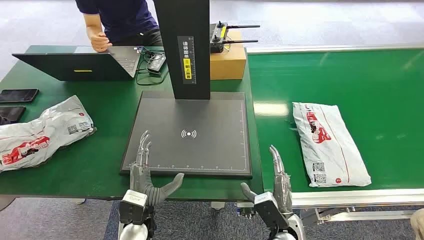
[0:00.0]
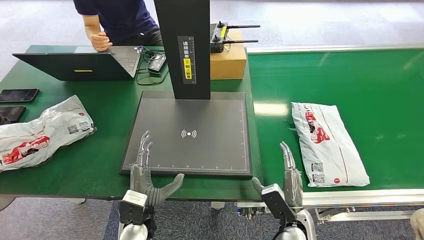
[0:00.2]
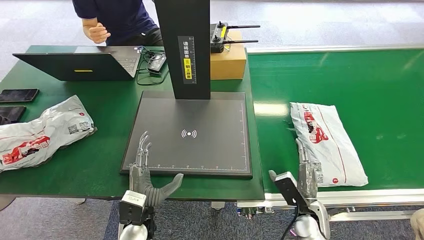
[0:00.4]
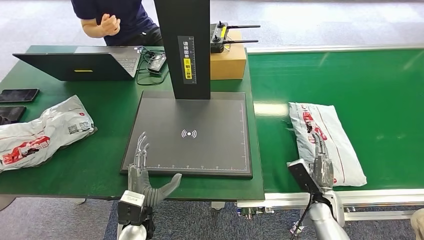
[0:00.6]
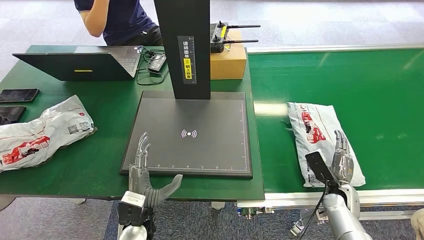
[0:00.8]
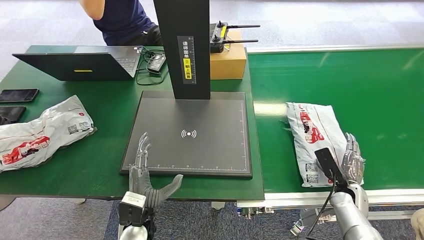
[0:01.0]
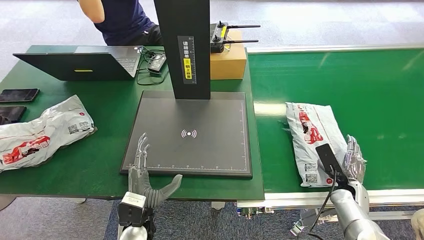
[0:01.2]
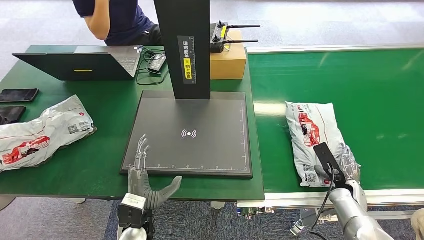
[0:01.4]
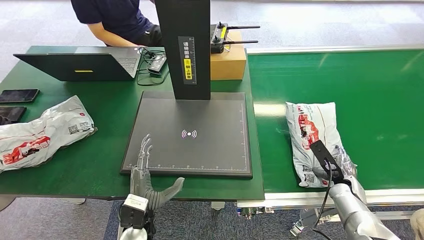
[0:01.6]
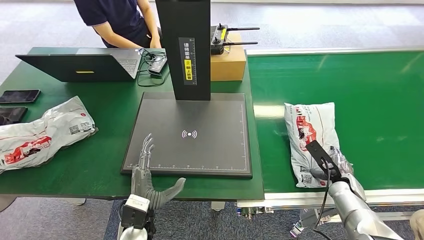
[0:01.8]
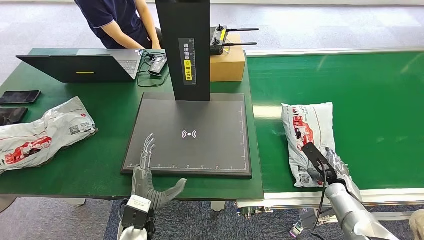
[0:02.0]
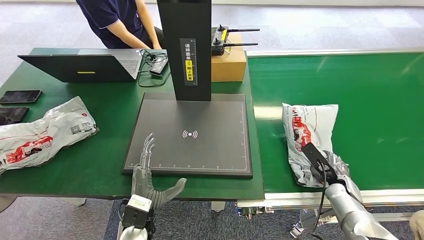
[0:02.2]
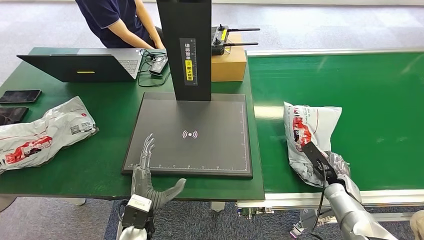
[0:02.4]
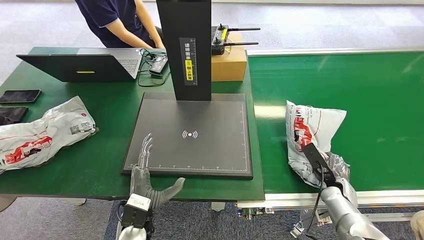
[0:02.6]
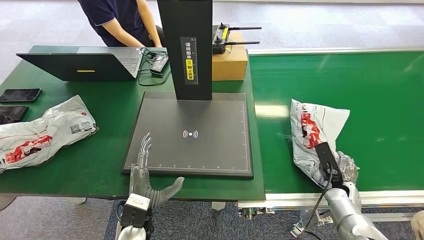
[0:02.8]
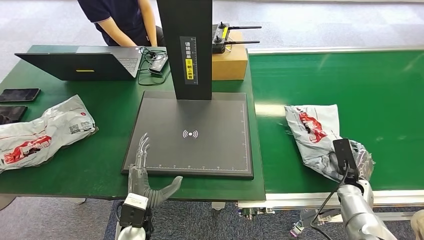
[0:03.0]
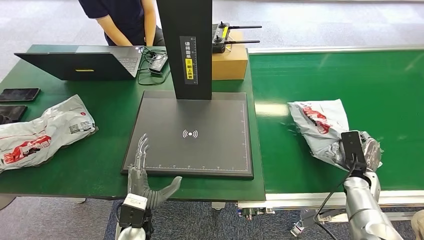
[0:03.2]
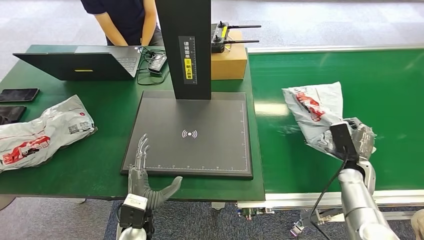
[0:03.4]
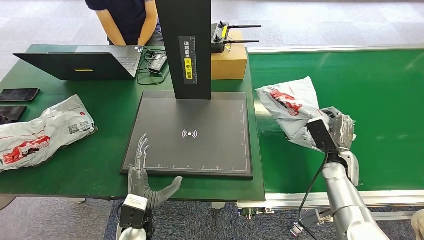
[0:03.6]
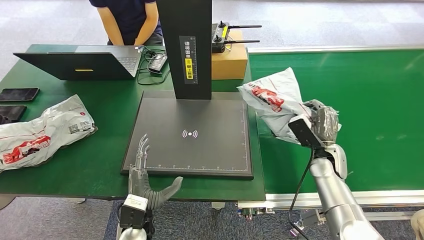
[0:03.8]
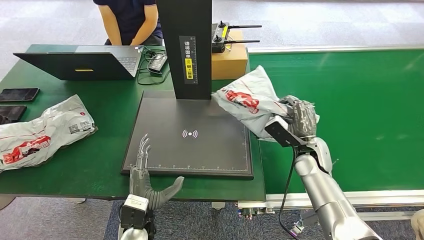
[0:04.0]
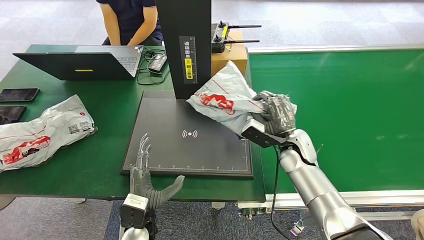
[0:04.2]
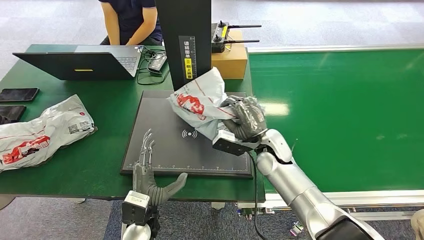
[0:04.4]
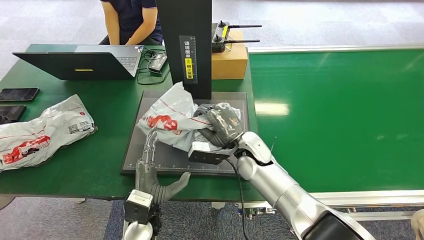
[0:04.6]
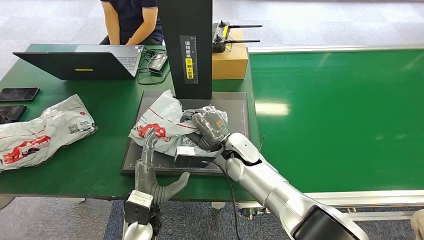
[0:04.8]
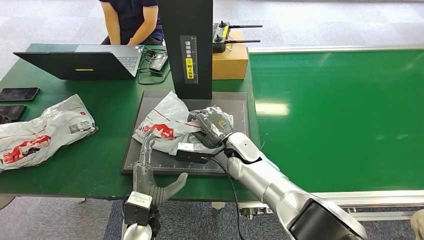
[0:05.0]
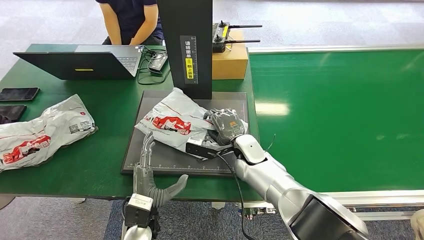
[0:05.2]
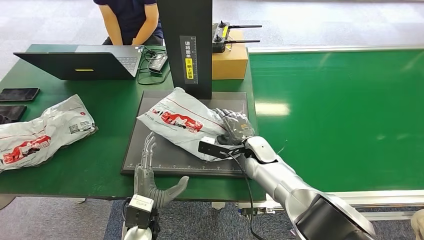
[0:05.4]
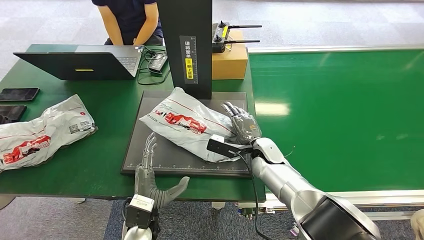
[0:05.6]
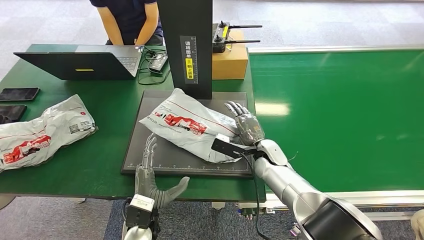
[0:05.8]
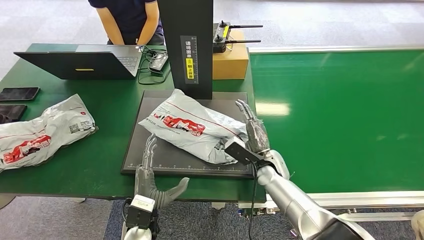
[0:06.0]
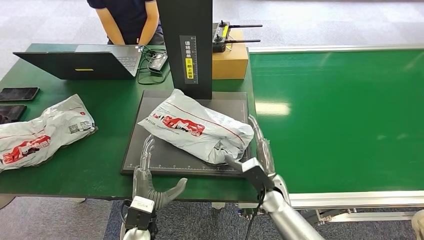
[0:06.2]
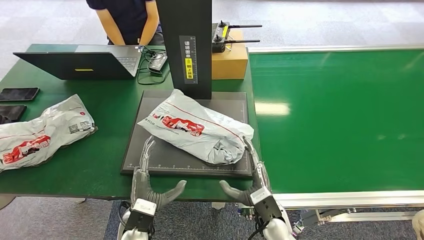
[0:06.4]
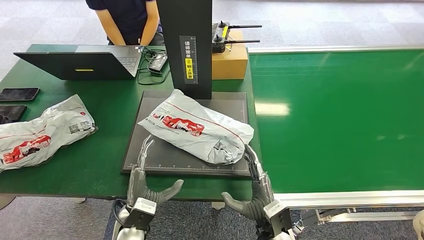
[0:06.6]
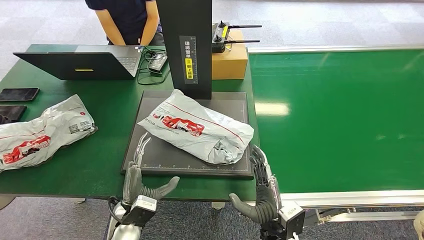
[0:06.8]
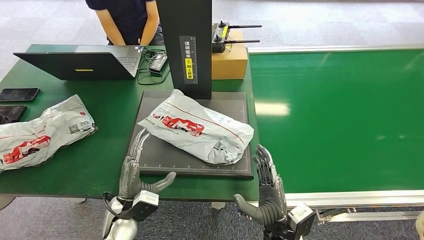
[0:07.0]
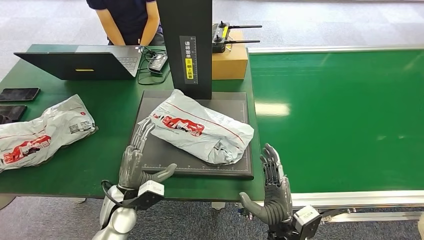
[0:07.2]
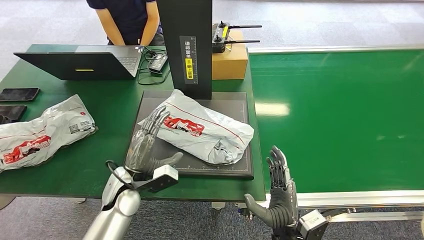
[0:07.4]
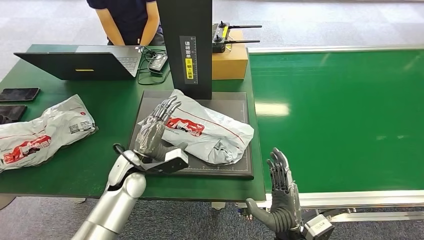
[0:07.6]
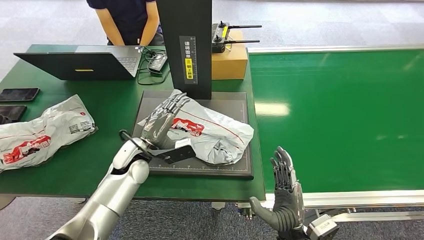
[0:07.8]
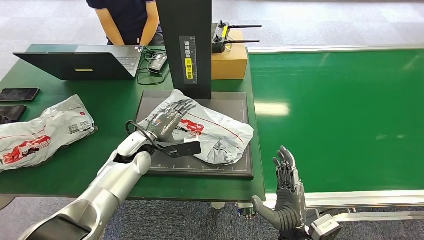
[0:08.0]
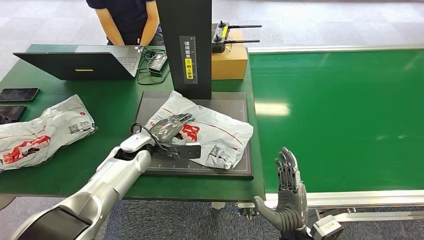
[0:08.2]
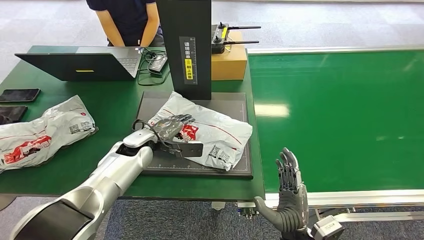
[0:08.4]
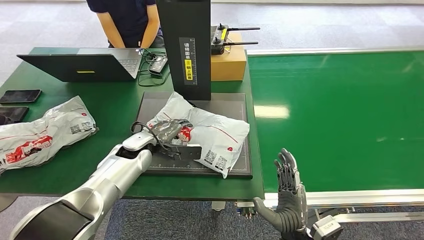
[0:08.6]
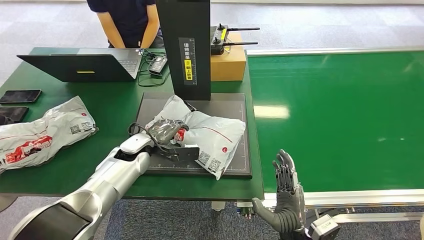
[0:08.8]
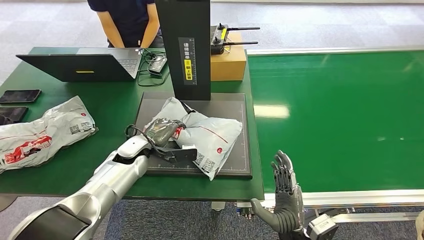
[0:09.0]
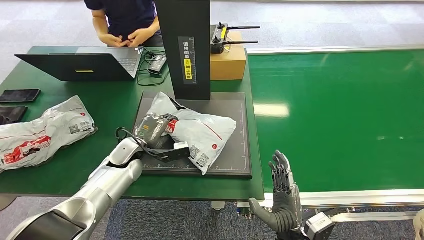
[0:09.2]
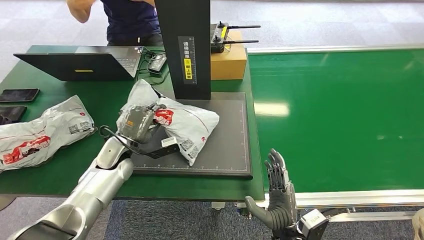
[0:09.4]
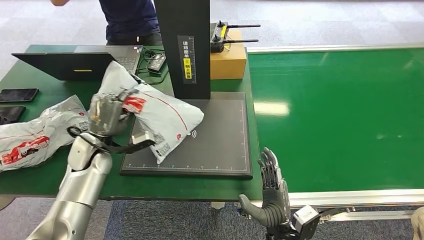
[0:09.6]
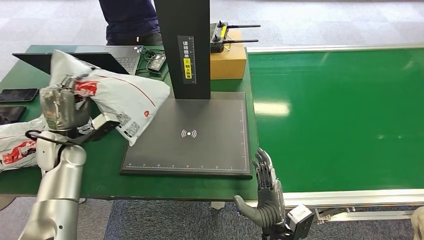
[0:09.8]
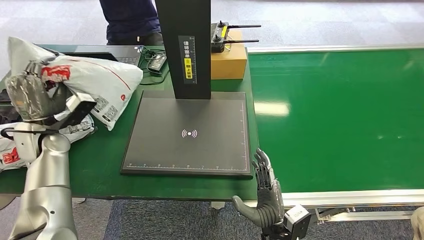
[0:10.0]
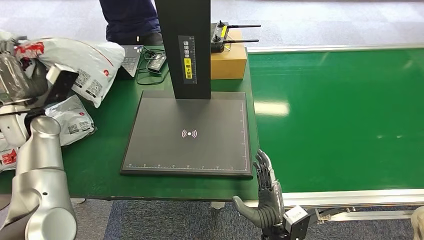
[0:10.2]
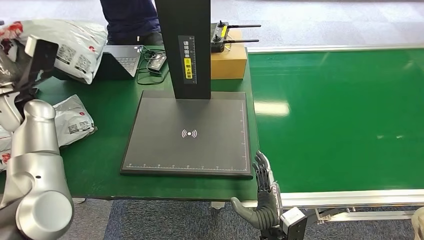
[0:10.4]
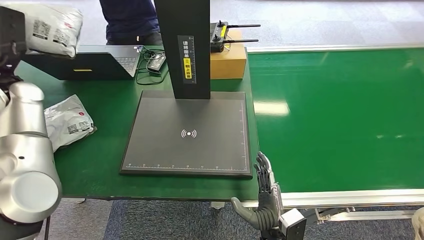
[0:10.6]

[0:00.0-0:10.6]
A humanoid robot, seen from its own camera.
Step, 0:00.0 to 0:03.6: Pick up the package from the conveyor belt.
Step, 0:03.8 to 0:06.4: Place the package onto the inbound machine.
Step, 0:06.6 to 0:09.6: Pick up the package from the inbound machine.
0:04.6 to 0:06.0: The right hand shifts about 10 cm downward and to the right.
0:06.0 to 0:07.6: The right hand moves backward, approximately 20 cm. The left hand travels forward and upward by roughly 15 cm.

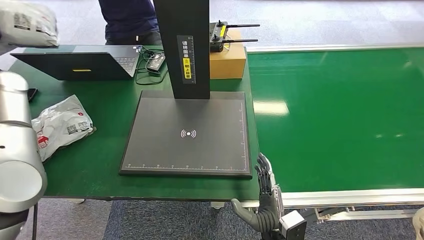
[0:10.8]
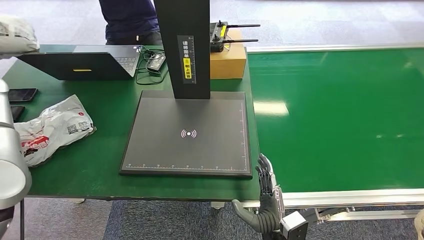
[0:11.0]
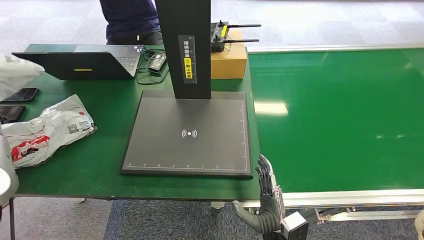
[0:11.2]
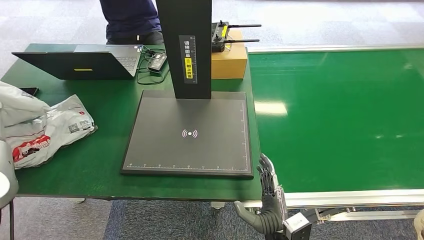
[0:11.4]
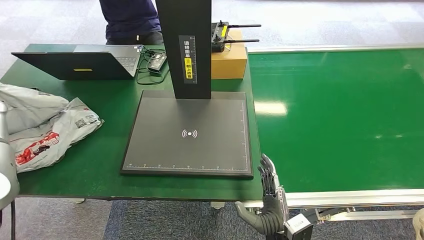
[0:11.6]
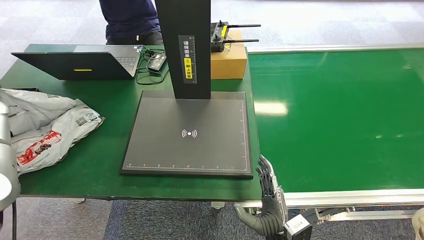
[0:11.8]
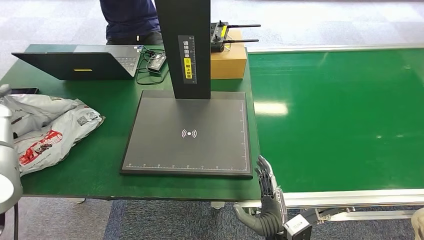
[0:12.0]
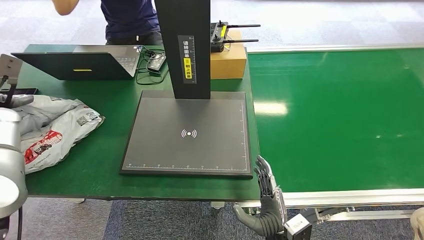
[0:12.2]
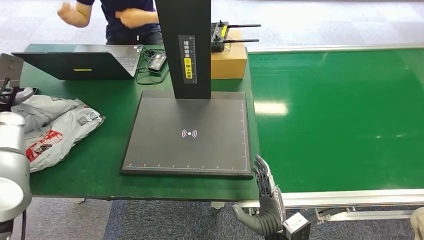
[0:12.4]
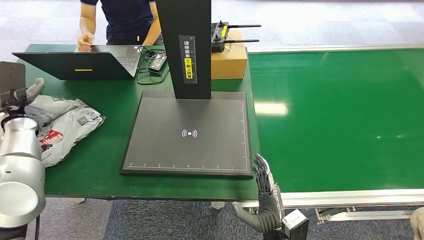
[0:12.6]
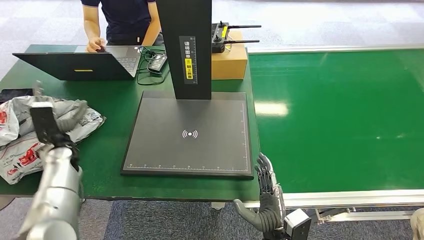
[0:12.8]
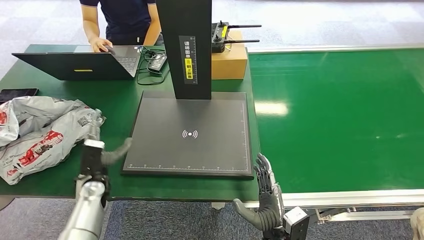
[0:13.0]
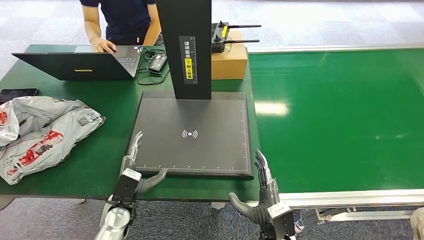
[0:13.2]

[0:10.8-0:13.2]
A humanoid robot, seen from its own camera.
Step, 0:10.8 to 0:13.2: Place the package into the parcel locker.
0:10.8 to 0:12.0: The left hand shifts about 10 cm downward and to the left.
0:12.0 to 0:13.2: The left hand heads to the right, downward and backward, covering roughly 40 cm.

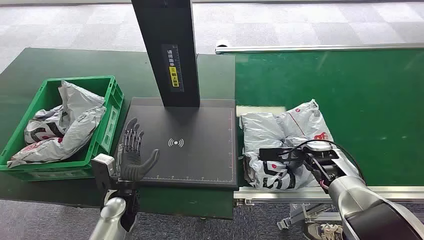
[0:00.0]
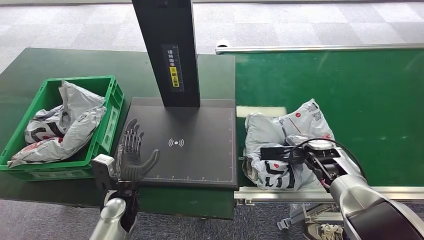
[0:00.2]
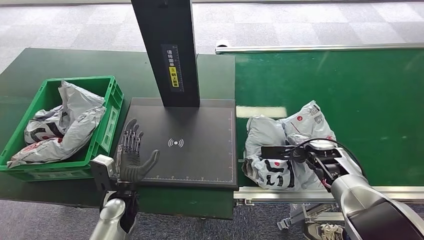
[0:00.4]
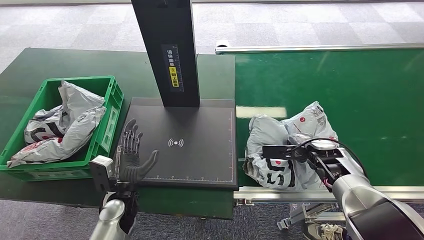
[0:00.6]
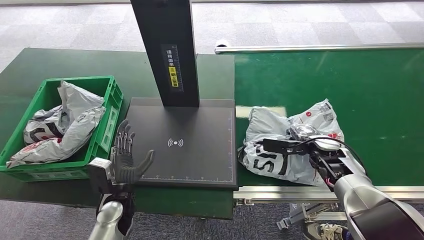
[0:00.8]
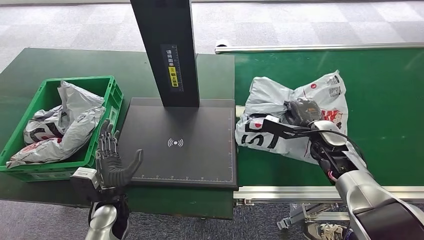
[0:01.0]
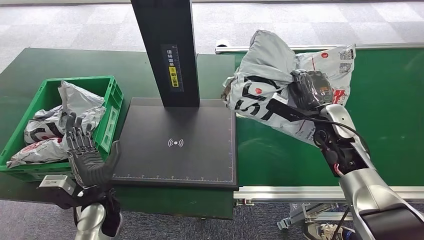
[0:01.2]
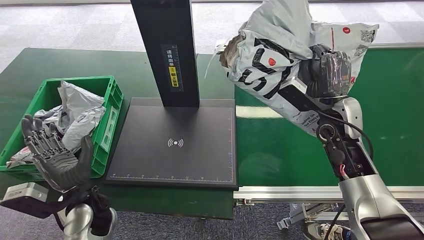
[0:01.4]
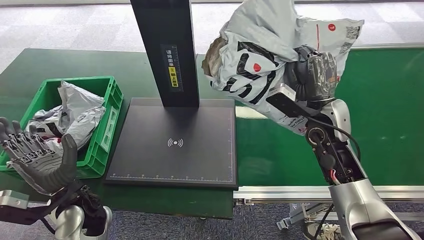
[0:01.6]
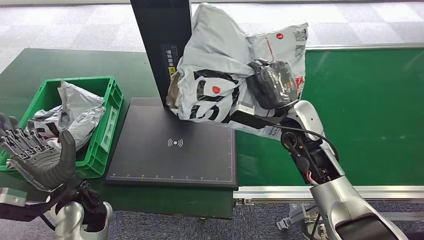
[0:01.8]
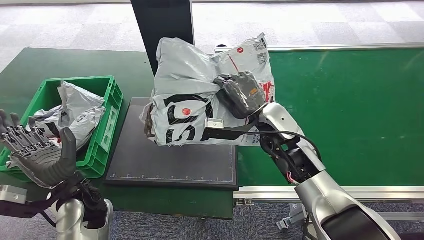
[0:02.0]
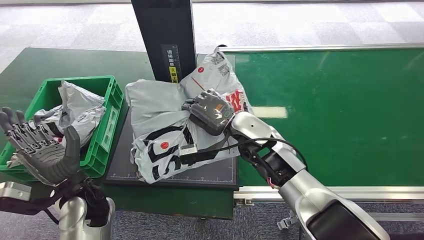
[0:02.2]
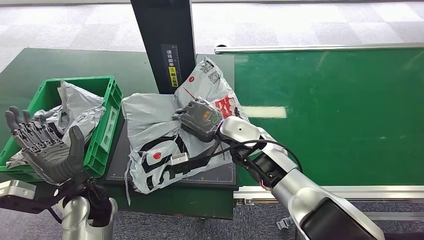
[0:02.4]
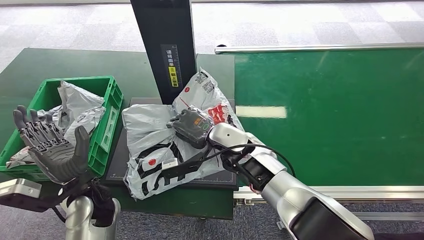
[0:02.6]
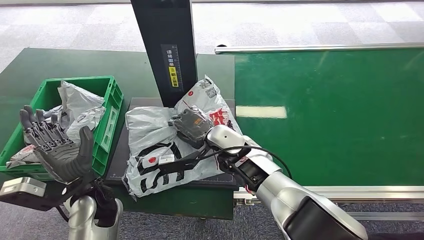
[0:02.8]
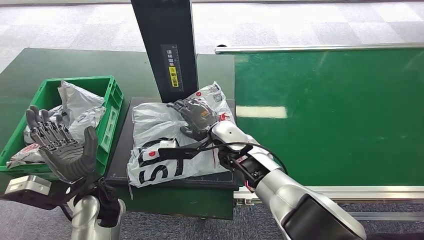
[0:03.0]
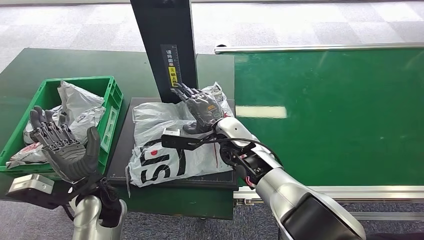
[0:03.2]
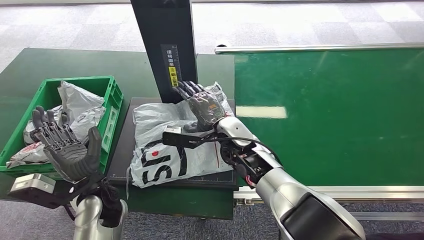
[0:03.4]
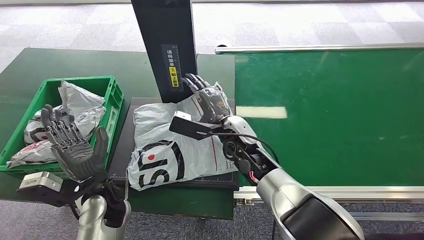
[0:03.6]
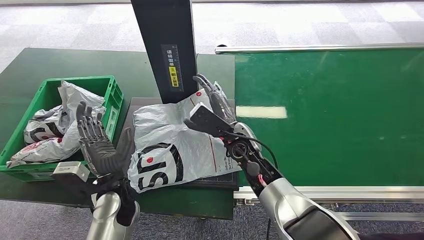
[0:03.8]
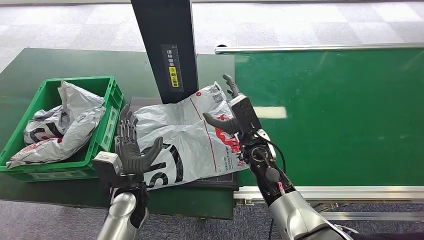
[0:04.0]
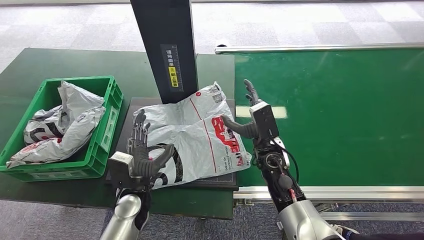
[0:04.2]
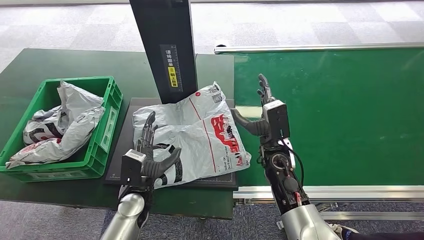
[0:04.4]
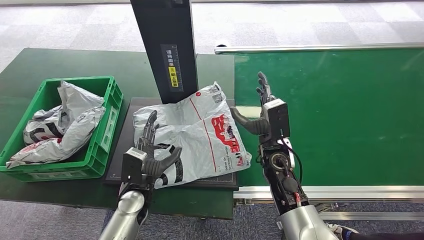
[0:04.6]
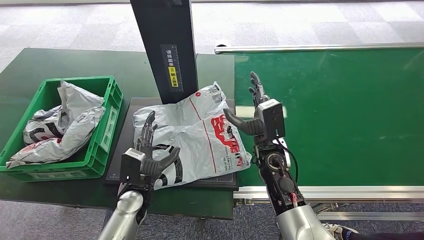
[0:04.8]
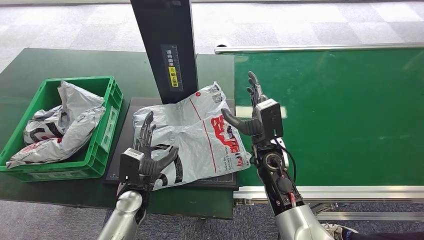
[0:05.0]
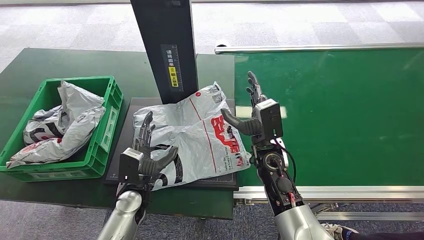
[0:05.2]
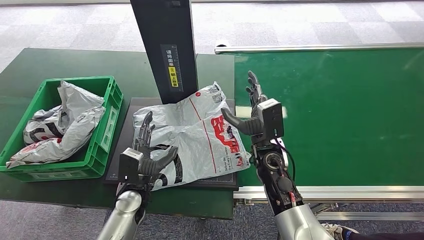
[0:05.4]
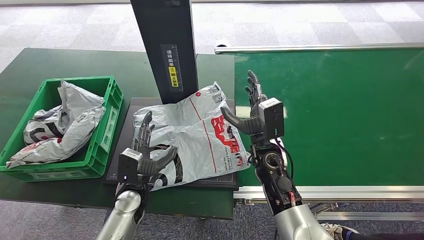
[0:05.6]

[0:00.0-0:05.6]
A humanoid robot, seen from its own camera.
Step, 0:00.0 to 0:01.4: Pick up the package from the conveyor belt.
Step, 0:01.8 to 0:04.8: Place the package onto the inbound machine.
0:04.2 to 0:05.6: The hands move only a little.
